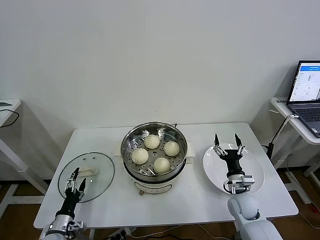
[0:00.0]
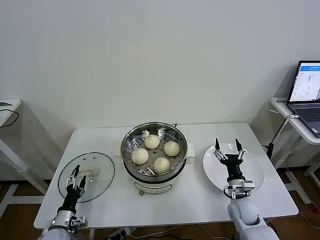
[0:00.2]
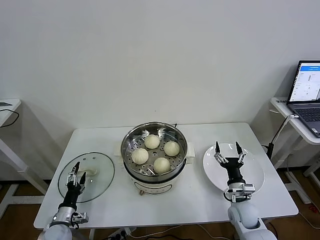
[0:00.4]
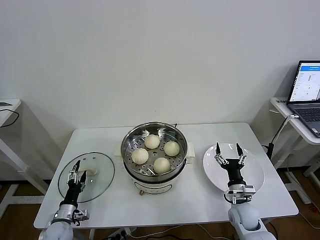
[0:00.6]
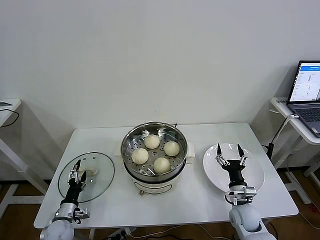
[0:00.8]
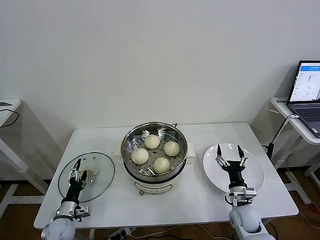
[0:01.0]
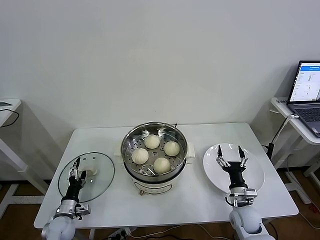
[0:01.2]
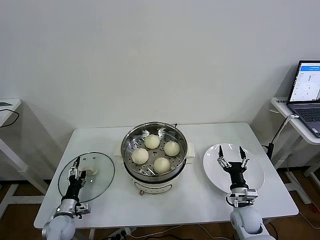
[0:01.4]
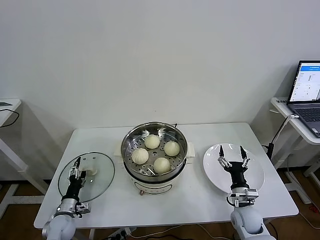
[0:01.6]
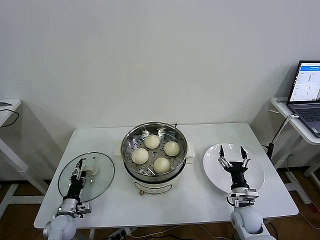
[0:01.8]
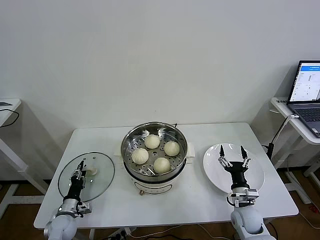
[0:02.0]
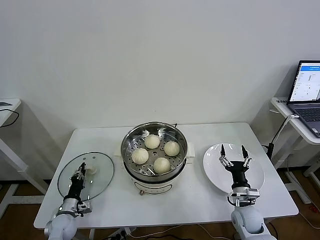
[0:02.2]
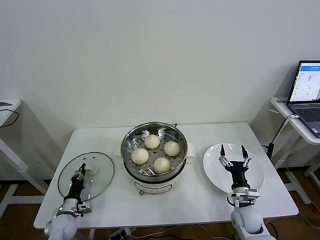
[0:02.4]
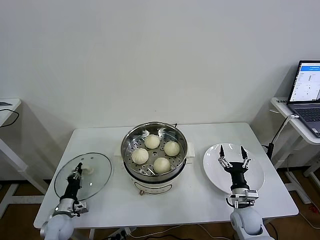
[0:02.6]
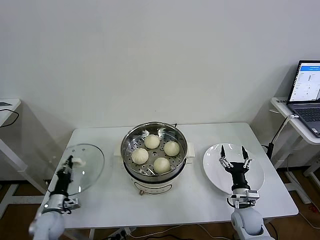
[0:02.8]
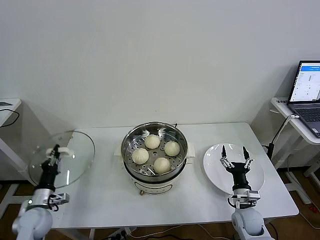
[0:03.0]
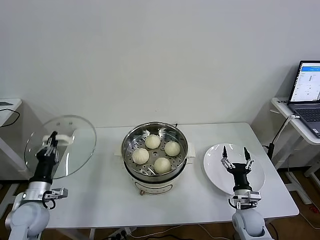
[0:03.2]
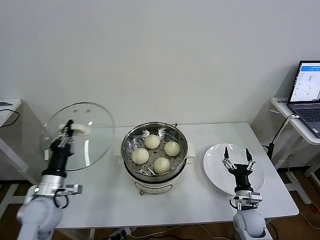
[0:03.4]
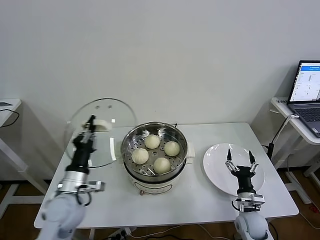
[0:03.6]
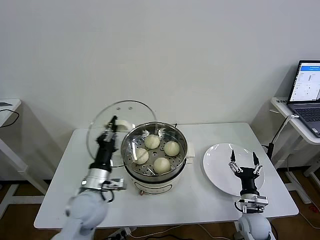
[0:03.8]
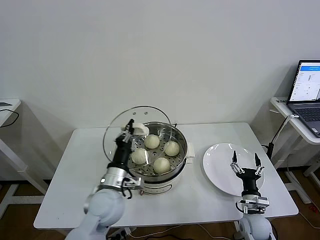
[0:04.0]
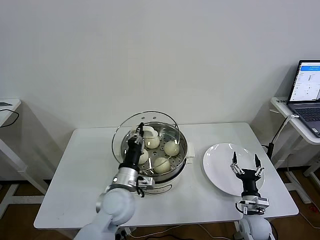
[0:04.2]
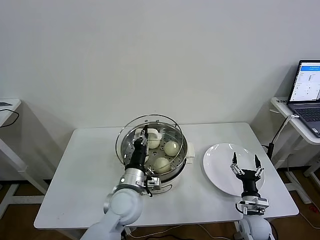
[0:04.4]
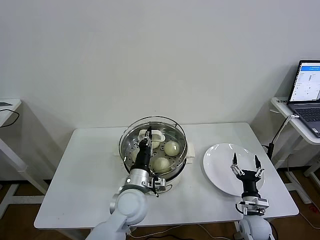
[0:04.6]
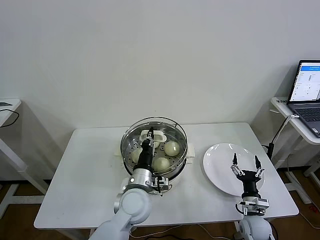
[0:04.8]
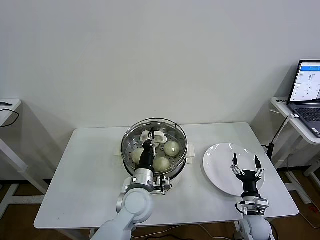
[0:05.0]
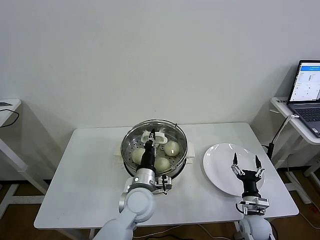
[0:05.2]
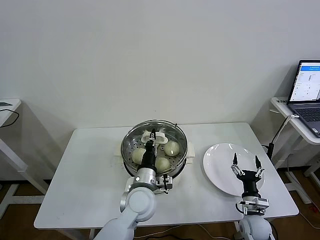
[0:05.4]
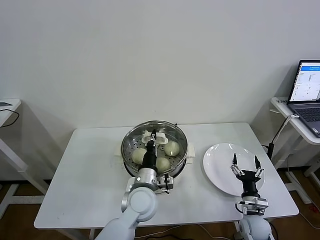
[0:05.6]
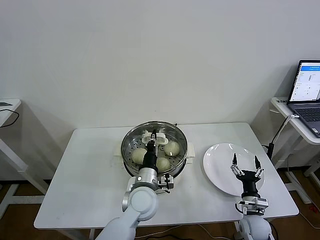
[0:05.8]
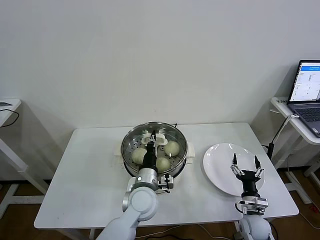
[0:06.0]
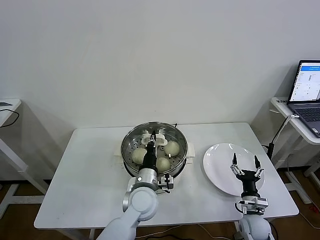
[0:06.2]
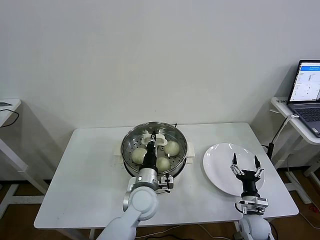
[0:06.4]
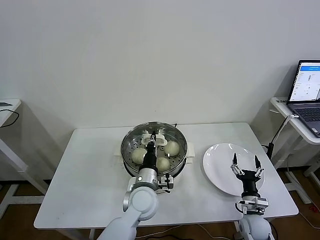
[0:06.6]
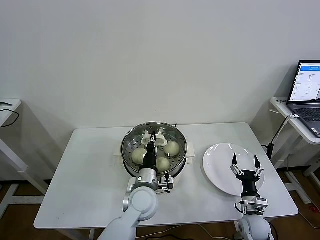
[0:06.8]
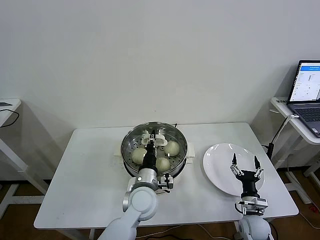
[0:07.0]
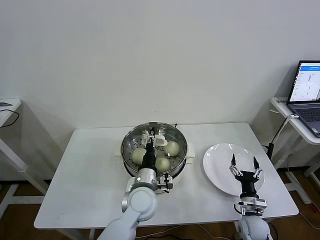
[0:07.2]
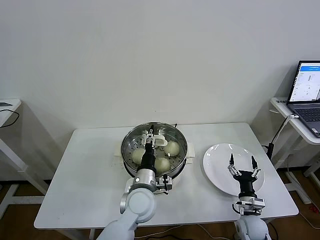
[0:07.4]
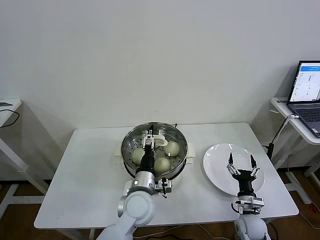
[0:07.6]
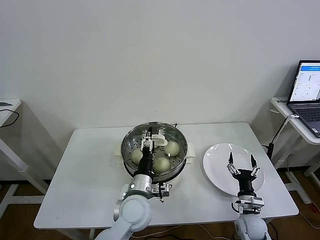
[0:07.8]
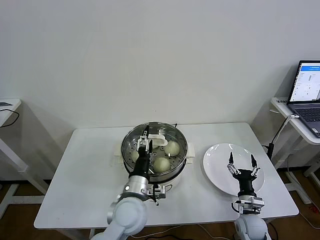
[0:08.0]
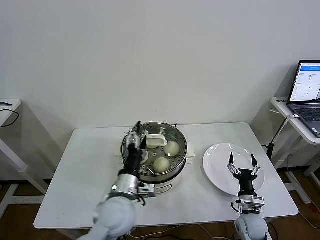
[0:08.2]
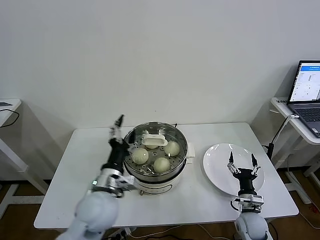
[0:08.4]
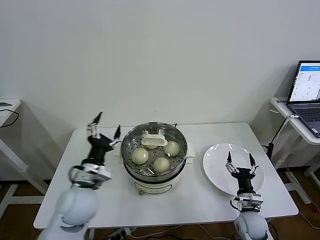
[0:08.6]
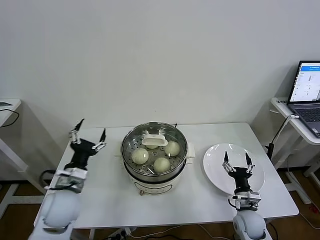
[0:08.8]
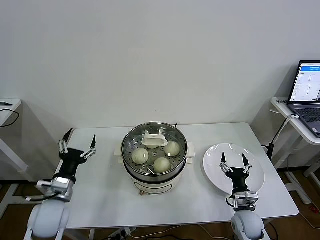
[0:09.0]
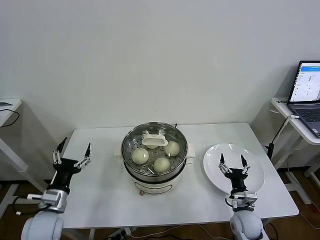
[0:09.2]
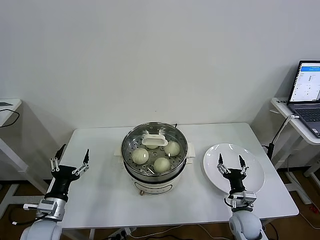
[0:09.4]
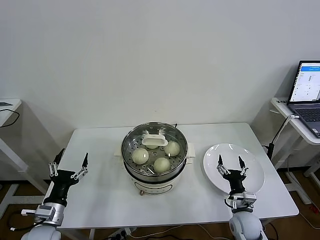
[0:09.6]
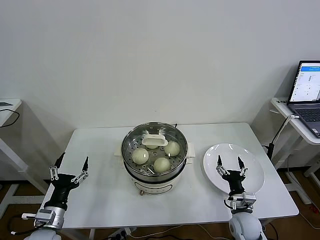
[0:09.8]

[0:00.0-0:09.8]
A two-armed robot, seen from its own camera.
Task of the whole recording: take steamed baozi put them in steamer then cover it.
Step, 0:00.0 to 0:02.6: Grasp the pot lid with left gripper.
Step, 0:02.8 to 0:07.4: Place the pot lid on the steamer with left gripper.
0:00.0 to 0:01.4: The right gripper changes place by about 5 cm. The left gripper moves forward, some 5 cm.
0:01.4 to 0:02.8: The left gripper closes its fingers.
0:02.8 to 0:04.2: The left gripper travels to the right and upward by approximately 30 cm.
0:04.2 to 0:05.6: The left gripper moves to the right, approximately 5 cm.
0:05.6 to 0:07.0: Neither gripper changes place.
0:07.0 to 0:08.4: The left gripper is displaced to the left and upward by about 10 cm, and opens up.
0:08.4 to 0:09.8: The left gripper travels to the left and downward by some 20 cm.

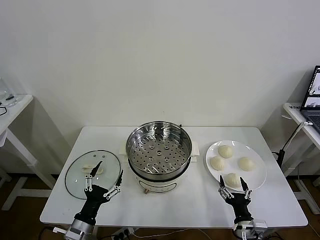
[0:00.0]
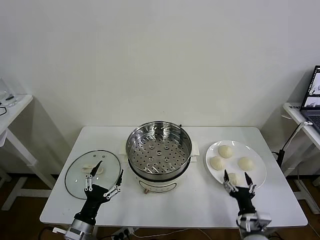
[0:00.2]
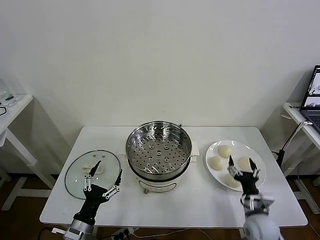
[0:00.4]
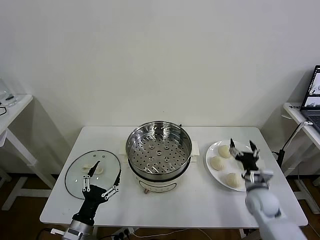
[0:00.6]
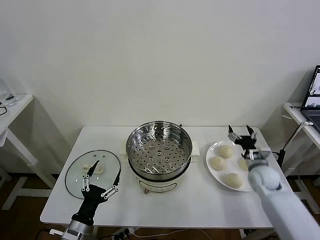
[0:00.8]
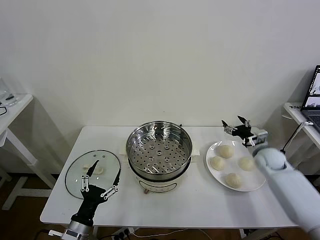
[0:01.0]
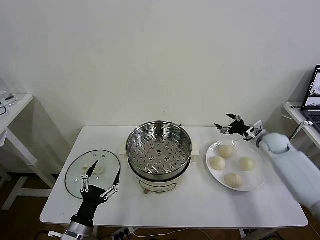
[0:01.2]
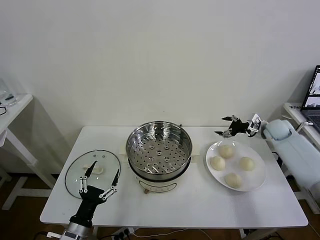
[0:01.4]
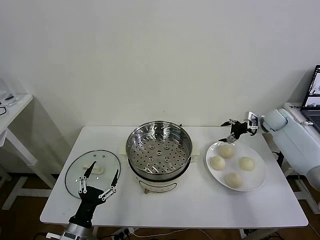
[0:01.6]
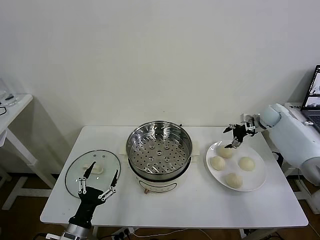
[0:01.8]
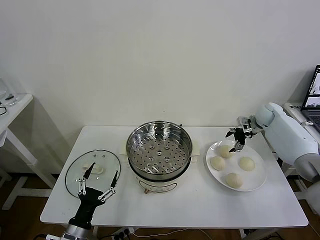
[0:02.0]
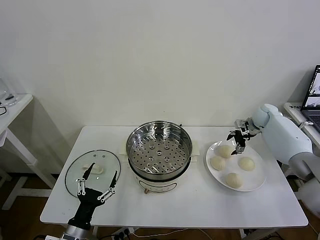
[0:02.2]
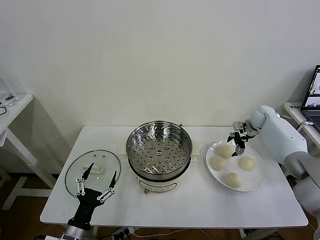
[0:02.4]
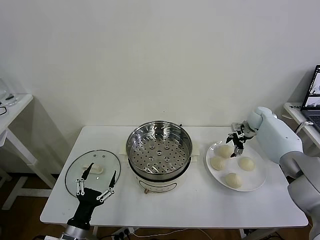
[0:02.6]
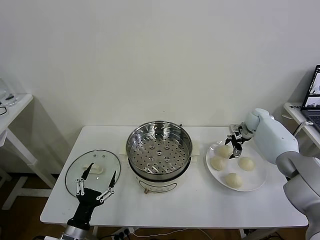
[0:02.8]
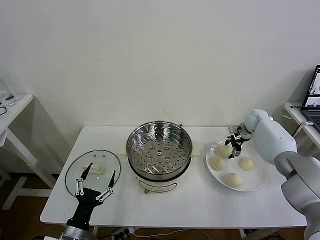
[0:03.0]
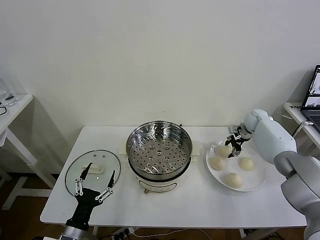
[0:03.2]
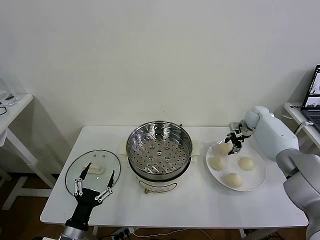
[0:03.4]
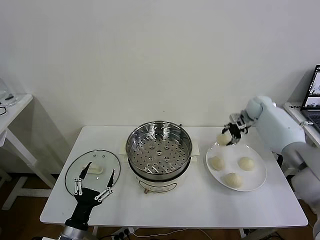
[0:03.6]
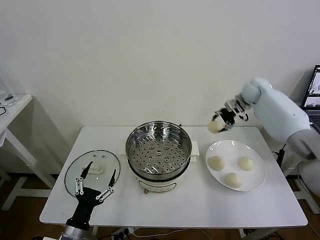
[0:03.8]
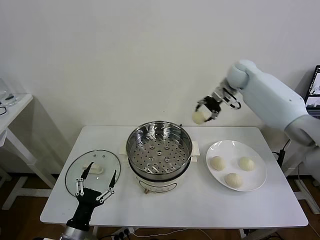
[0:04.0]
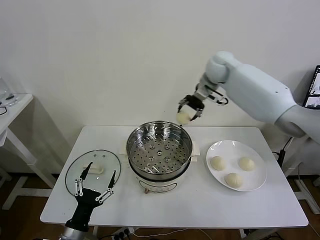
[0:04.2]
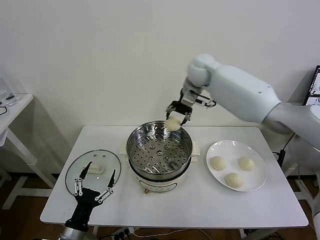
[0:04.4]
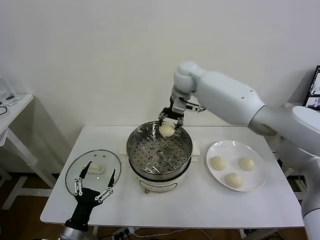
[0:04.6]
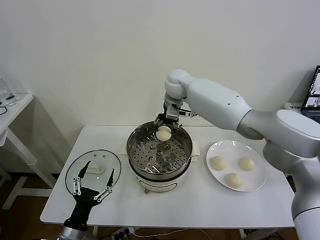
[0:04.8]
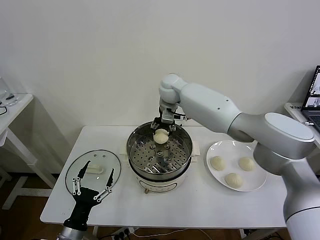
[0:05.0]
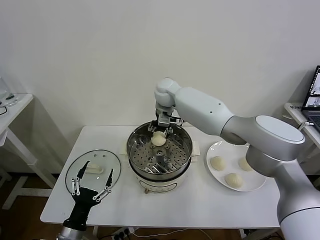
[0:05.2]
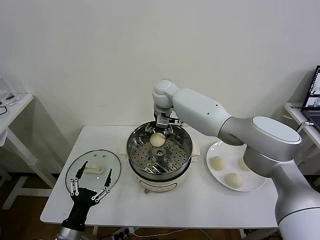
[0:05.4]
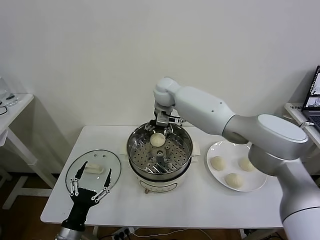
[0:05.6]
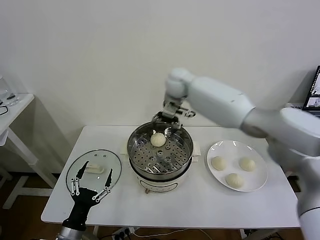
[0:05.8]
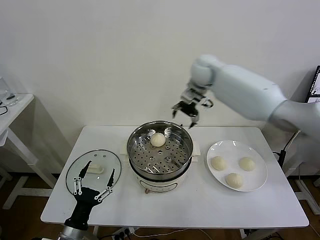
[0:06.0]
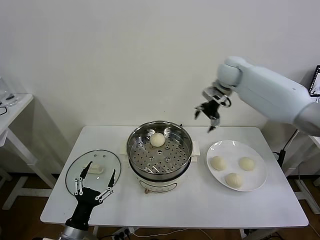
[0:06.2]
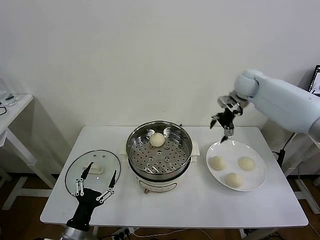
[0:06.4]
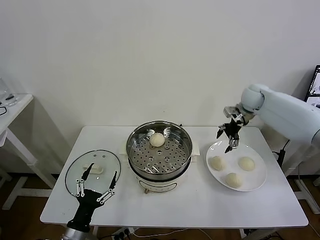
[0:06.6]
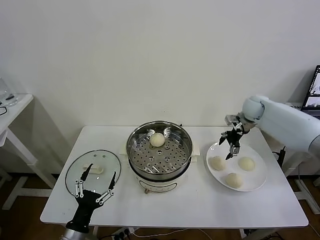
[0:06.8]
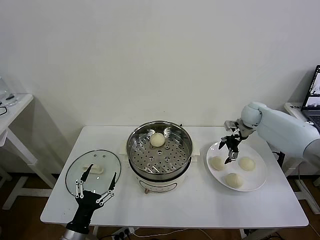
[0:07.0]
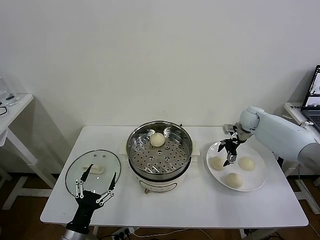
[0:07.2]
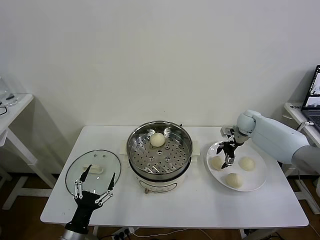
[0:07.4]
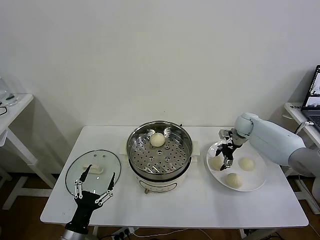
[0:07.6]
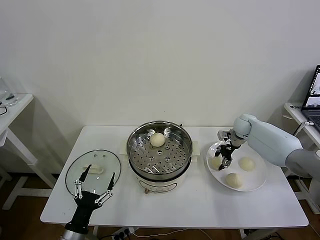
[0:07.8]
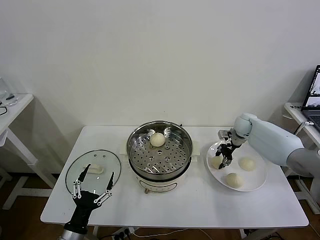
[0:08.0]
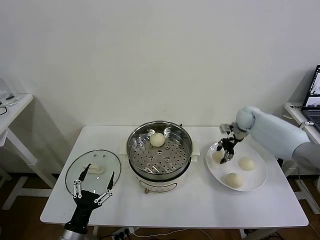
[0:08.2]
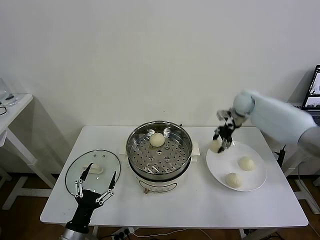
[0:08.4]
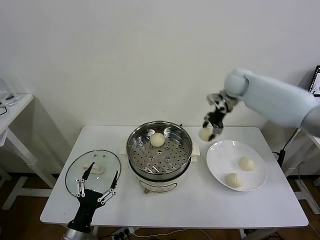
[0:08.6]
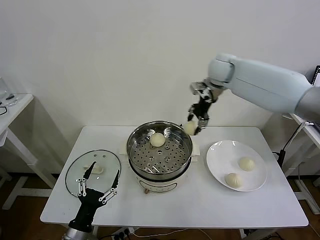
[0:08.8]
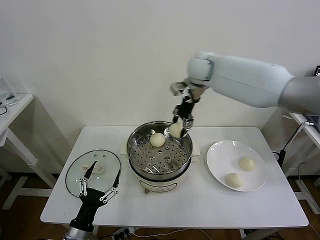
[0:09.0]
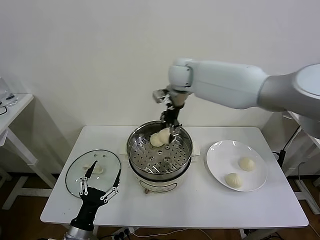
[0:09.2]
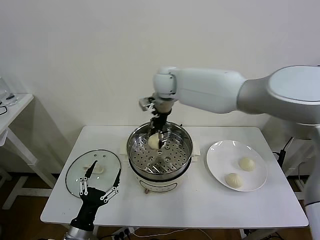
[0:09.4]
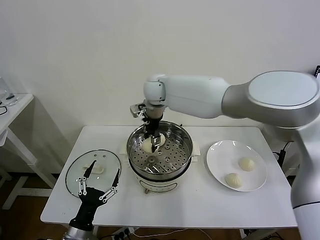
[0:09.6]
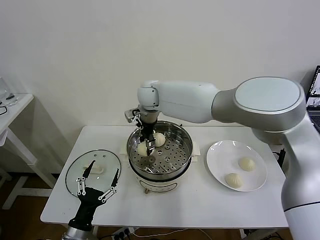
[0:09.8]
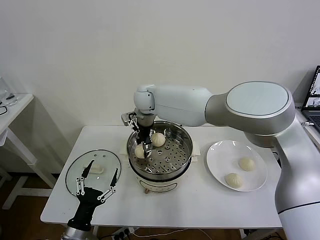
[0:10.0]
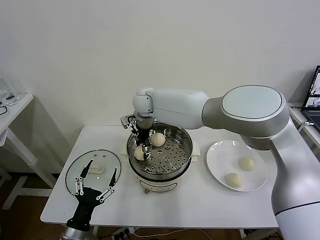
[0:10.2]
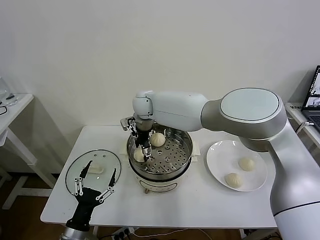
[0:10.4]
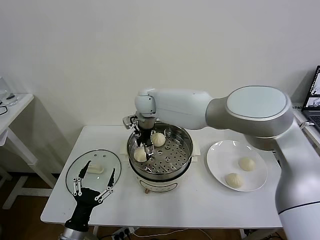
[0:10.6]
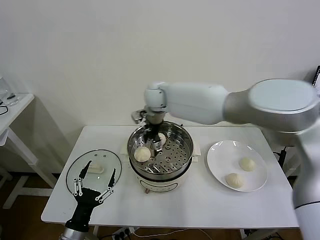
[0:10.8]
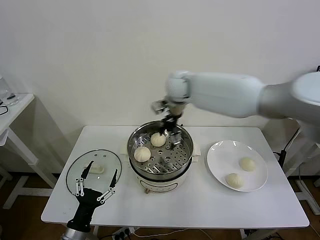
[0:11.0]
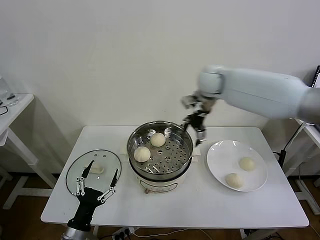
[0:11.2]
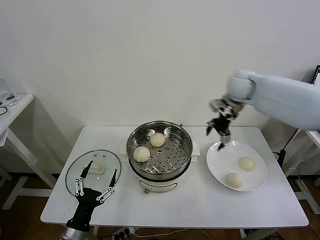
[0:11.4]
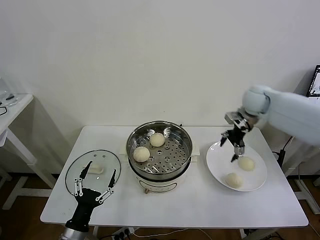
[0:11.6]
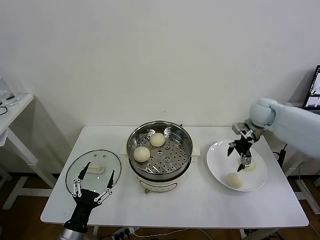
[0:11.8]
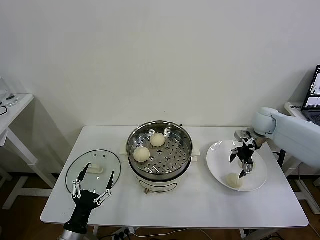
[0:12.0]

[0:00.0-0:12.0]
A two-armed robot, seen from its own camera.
Task of the whole recording: take steamed baozi put them in steamer then cover it.
Step, 0:00.0 to 0:03.0: Grasp the baozi in the plate with right gripper.
Step, 0:03.4 to 0:05.4: Place the baozi on the steamer with right gripper.
Step, 0:05.6 to 0:07.8: Grasp the baozi in the plate with right gripper.
Step, 0:08.0 to 0:10.6: Place the baozi on the steamer with right gripper.
0:01.6 to 0:03.0: The right gripper goes roughly 5 cm downward, and closes.
0:03.0 to 0:04.4: The right gripper heads to the left and upward, covering some 40 cm.
0:04.4 to 0:06.0: The right gripper moves to the right, about 10 cm, and opens.
0:06.0 to 0:07.6: The right gripper shifts about 30 cm downward and to the right.
0:07.6 to 0:09.0: The right gripper goes about 35 cm to the left and upward, and closes up.
0:09.0 to 0:10.4: The right gripper moves to the left and downward, some 20 cm, and opens its fingers.
0:10.4 to 0:12.0: The right gripper heads to the right, covering approximately 40 cm.
